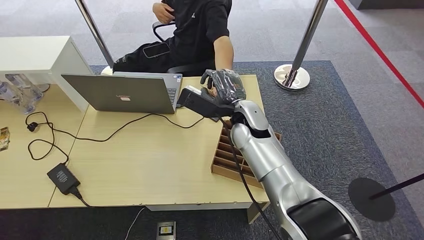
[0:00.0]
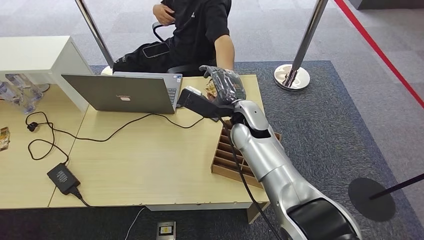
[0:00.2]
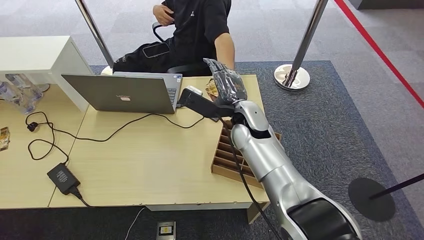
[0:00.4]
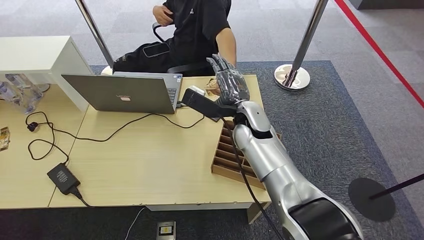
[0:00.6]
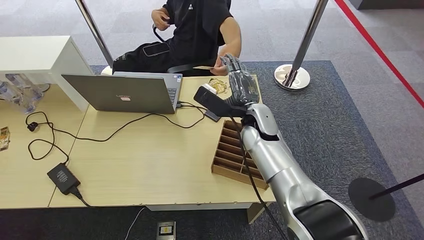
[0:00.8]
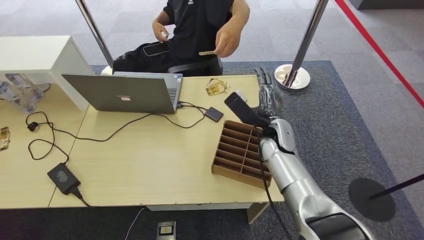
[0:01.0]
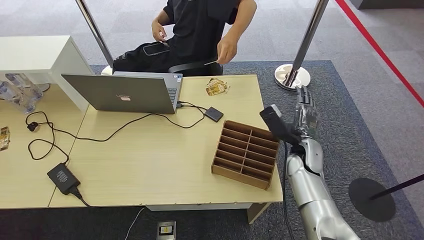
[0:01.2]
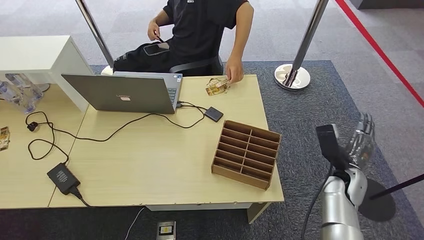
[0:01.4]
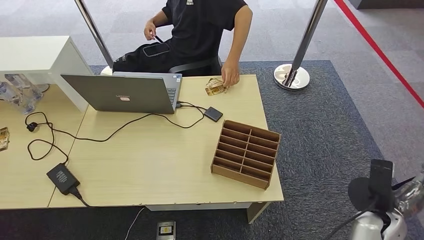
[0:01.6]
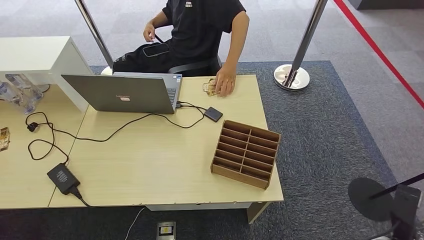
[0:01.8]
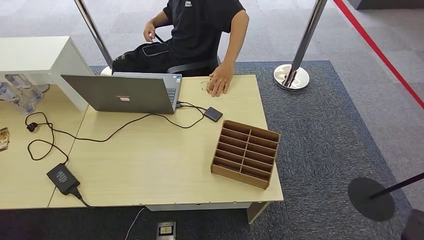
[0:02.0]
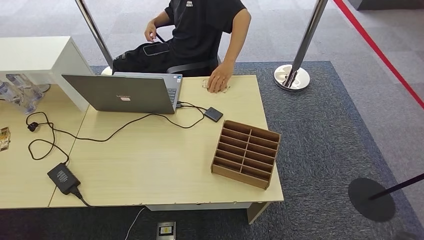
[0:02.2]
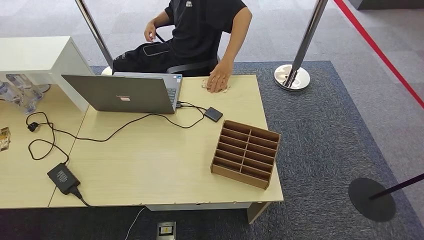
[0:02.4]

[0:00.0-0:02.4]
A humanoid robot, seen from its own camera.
Step, 0:00.0 to 0:02.4: Hand the room card to the target.
0:00.0 to 0:01.2: The right hand moves to the right and downward, some 20 cm.
0:01.2 to 0:02.4: The right hand goes roughly 40 cm backward, downward and to the right.
